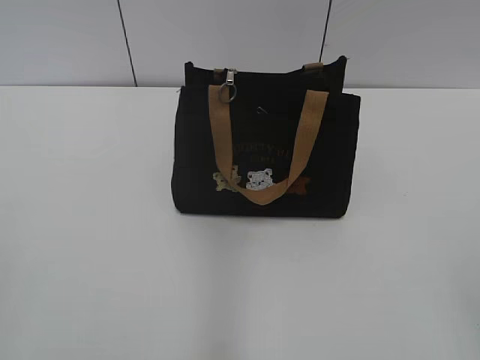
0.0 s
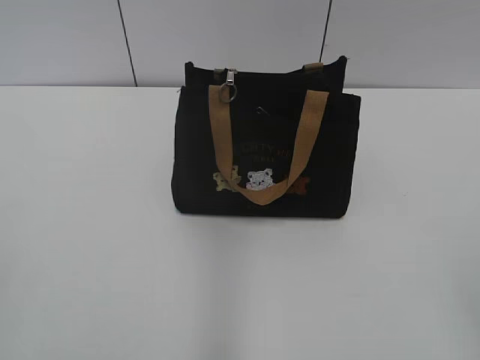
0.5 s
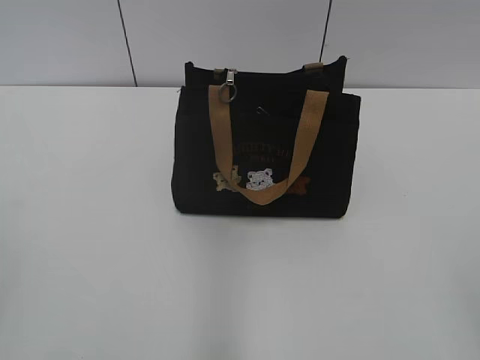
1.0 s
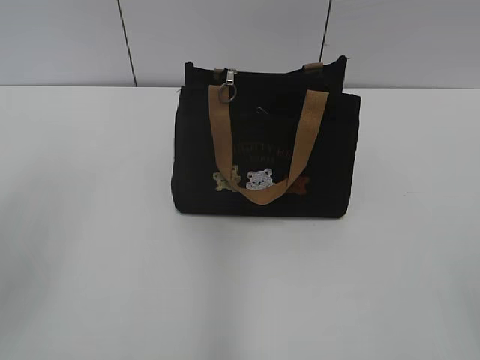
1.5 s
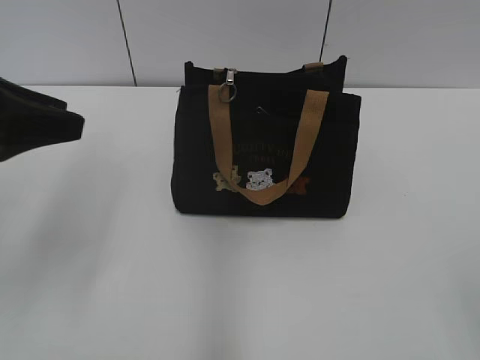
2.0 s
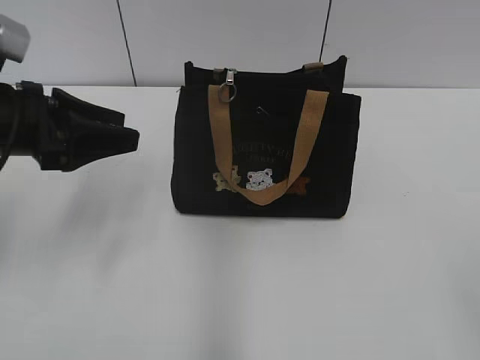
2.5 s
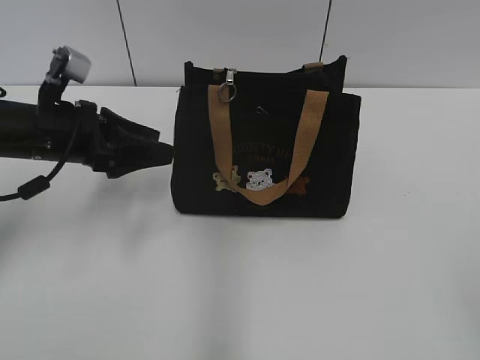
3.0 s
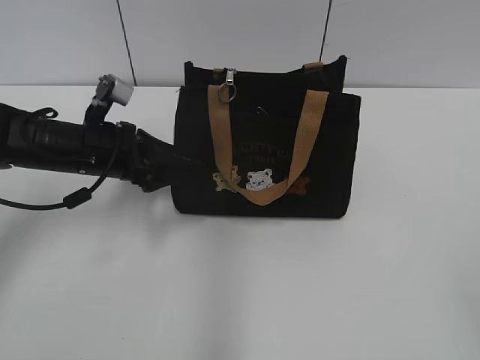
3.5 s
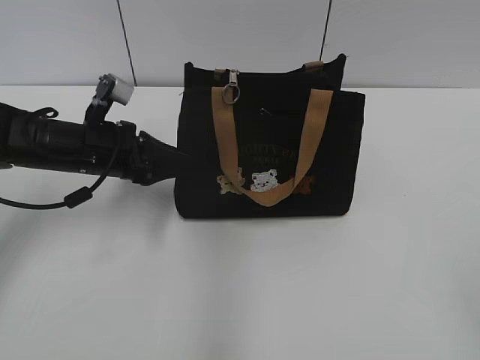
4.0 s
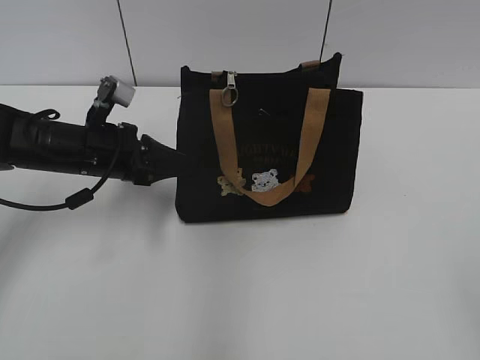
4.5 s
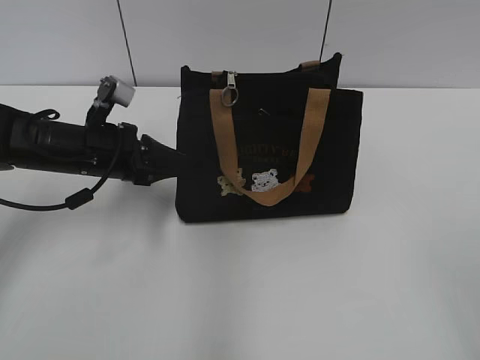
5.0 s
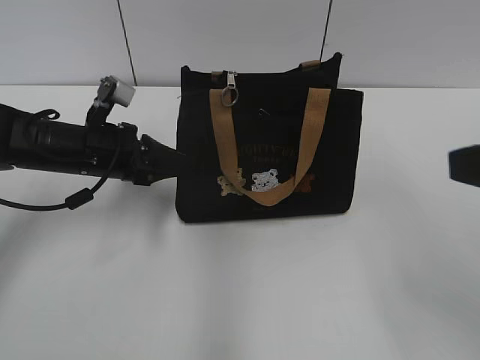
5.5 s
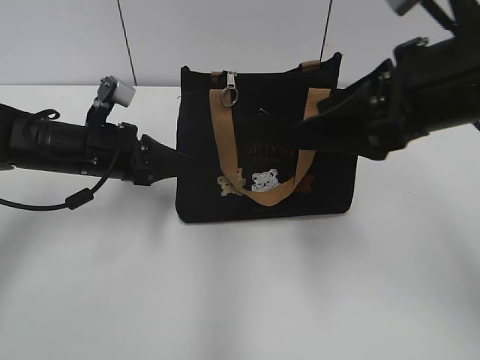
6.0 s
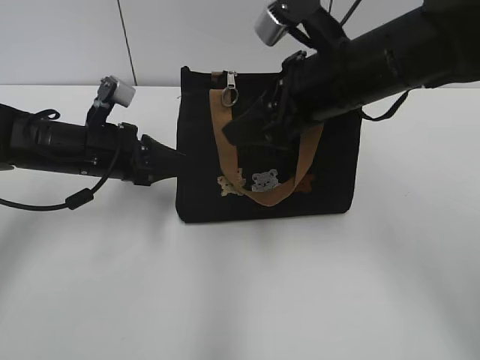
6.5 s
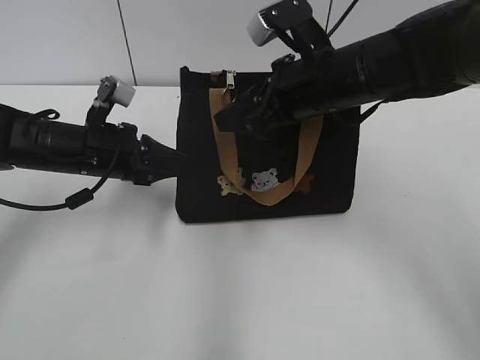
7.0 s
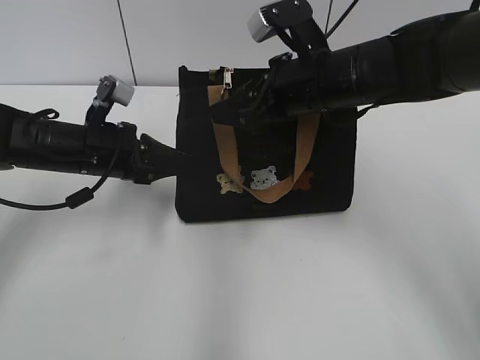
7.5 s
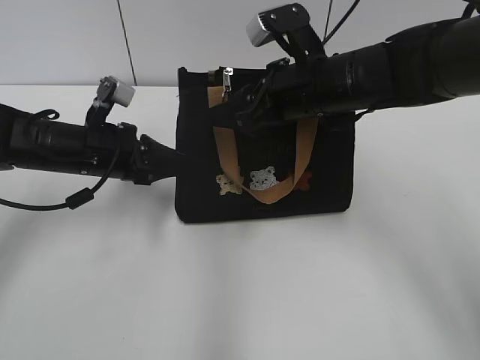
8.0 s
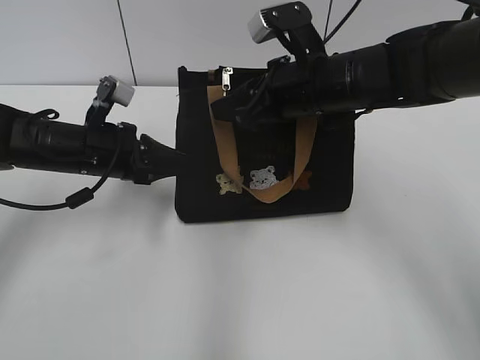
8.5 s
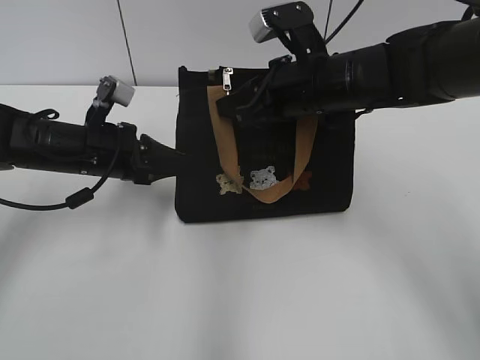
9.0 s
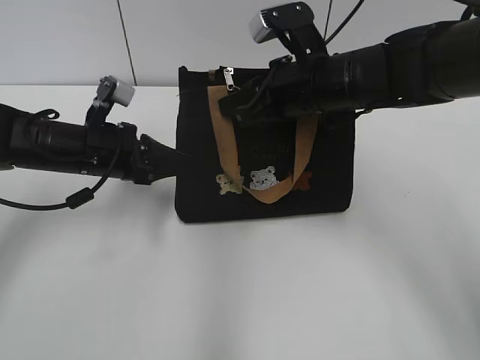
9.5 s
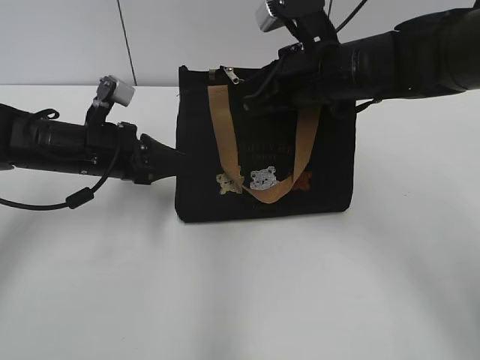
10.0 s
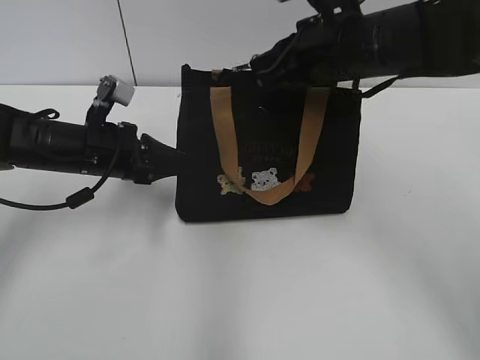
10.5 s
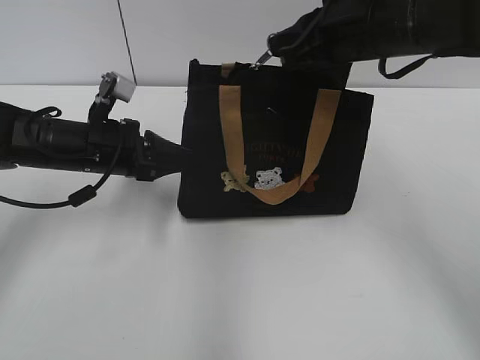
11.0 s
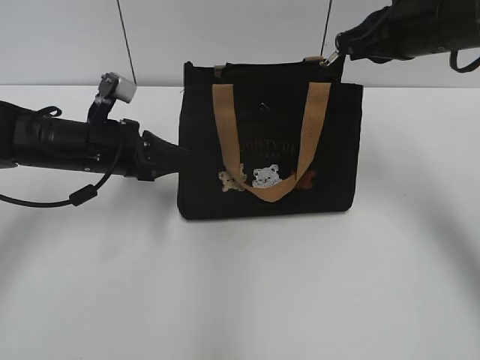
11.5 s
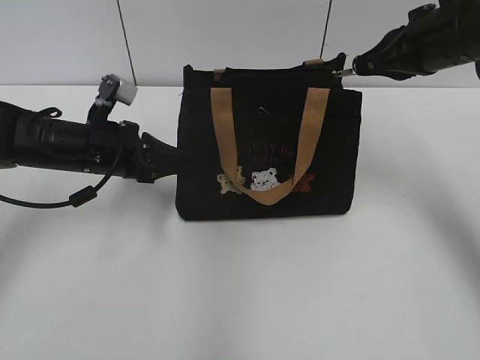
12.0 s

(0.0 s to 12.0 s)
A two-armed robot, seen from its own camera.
2.0 s - 4.0 s: The left gripper shifts some 20 cm downward, forward and to the right, and opens, then closes again.
4.0 s - 6.0 s: The left gripper closes its fingers. Meanwhile the right gripper travels forward and to the left by roughly 25 cm.
6.0 s - 8.0 s: The right gripper is displaced forward, downward and to the left by some 15 cm.
8.0 s - 10.0 s: The right gripper closes its fingers.
10.0 s - 12.0 s: The right gripper heads to the right, covering approximately 10 cm.

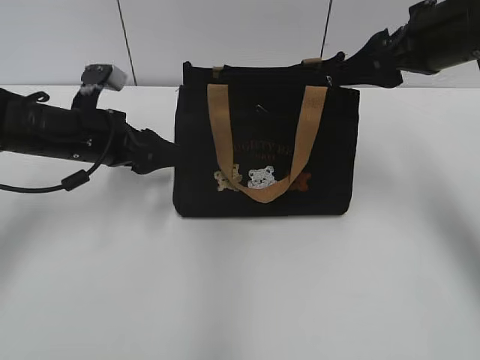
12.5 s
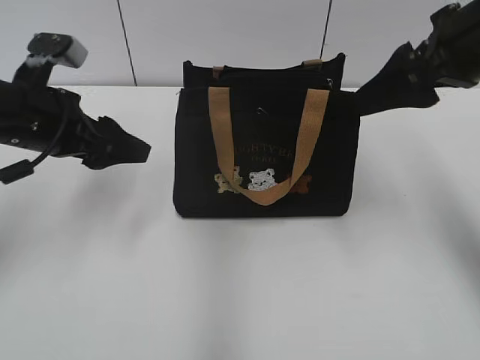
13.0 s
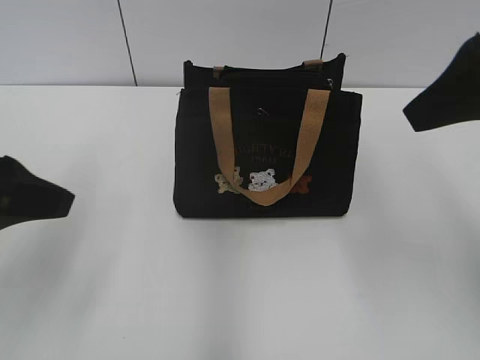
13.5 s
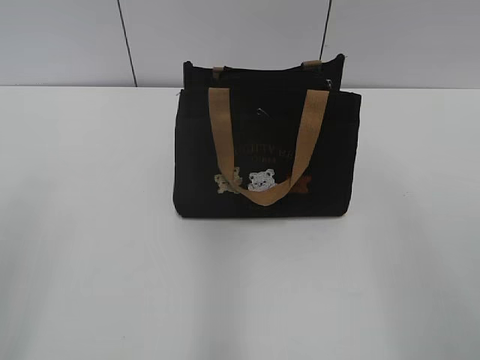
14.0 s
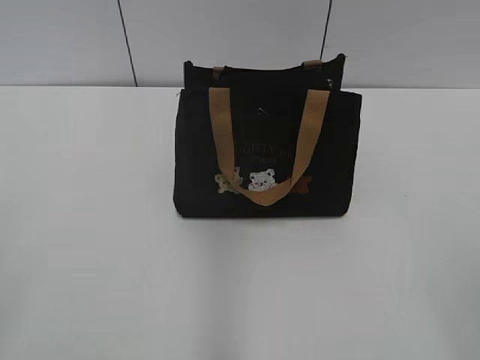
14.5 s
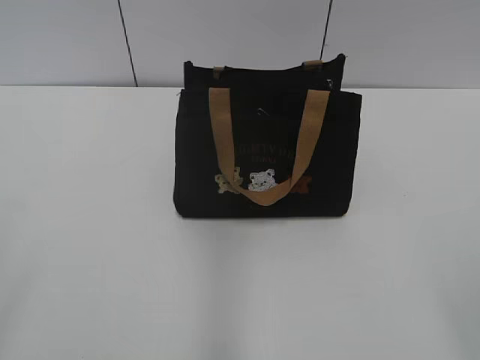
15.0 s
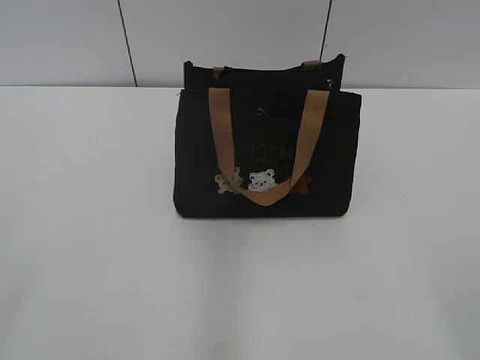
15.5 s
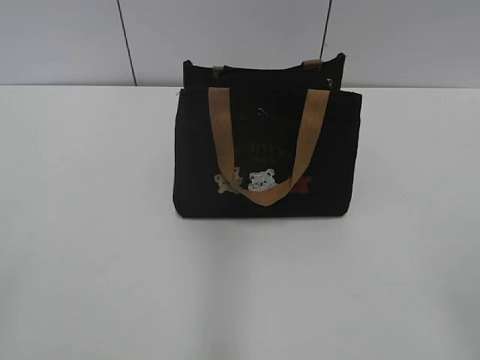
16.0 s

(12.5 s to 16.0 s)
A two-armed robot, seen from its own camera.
12.5 s - 14.5 s: The right gripper shifts roughly 35 cm backward, while the left gripper shifts about 35 cm backward and upward.
